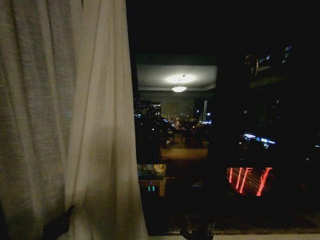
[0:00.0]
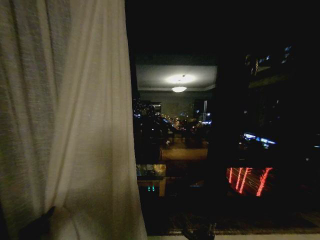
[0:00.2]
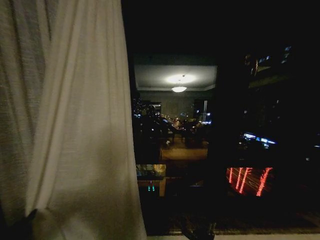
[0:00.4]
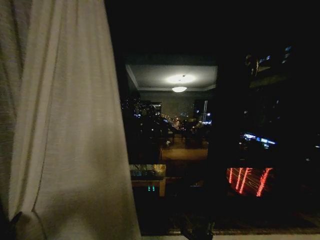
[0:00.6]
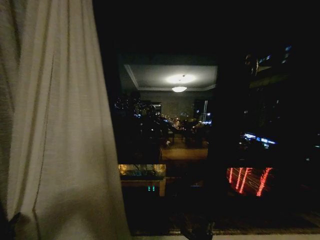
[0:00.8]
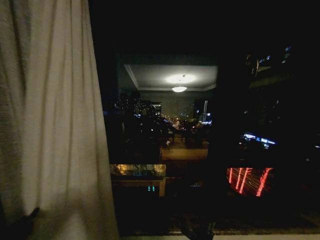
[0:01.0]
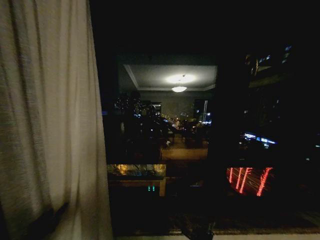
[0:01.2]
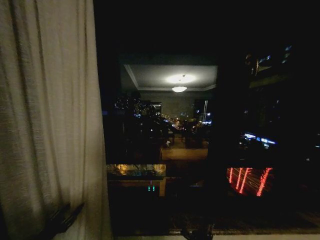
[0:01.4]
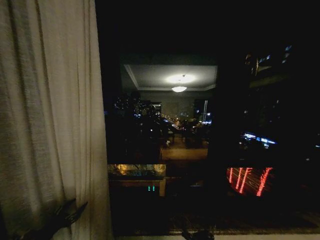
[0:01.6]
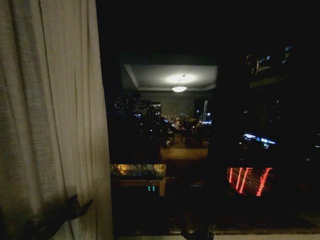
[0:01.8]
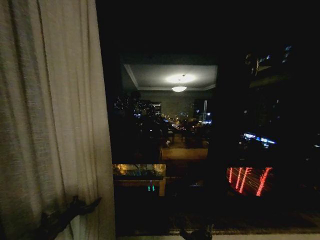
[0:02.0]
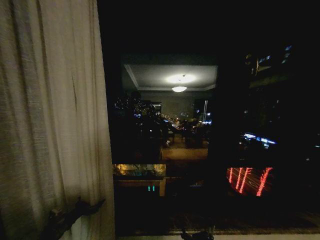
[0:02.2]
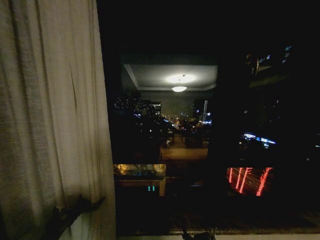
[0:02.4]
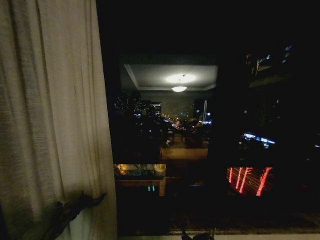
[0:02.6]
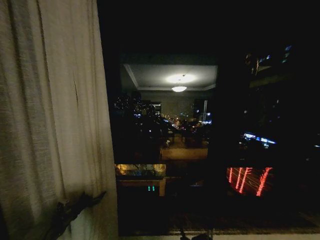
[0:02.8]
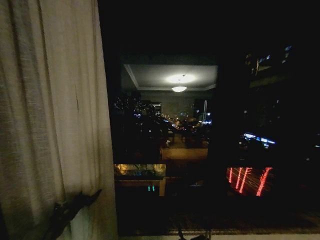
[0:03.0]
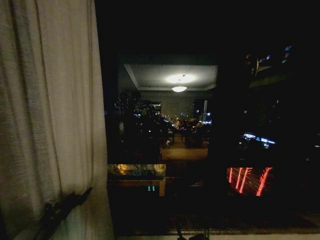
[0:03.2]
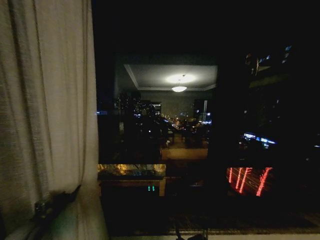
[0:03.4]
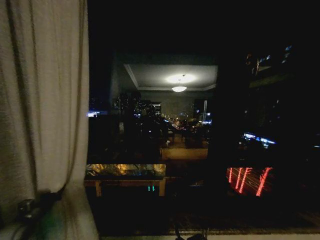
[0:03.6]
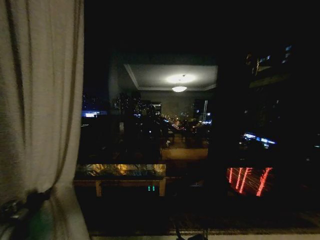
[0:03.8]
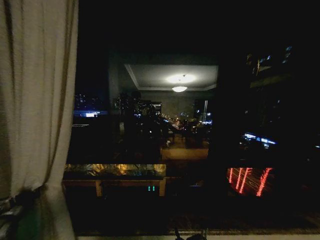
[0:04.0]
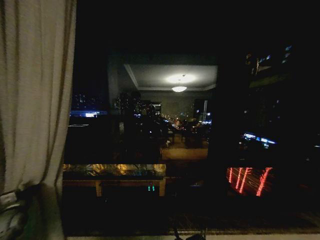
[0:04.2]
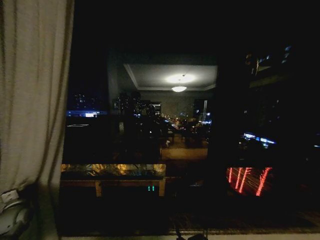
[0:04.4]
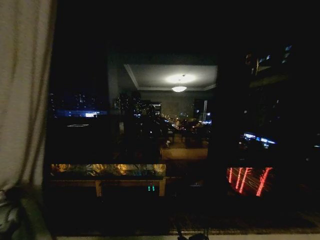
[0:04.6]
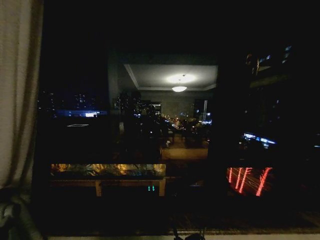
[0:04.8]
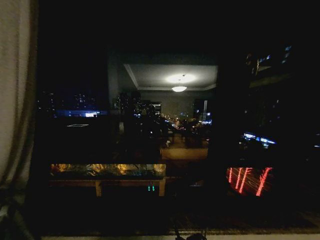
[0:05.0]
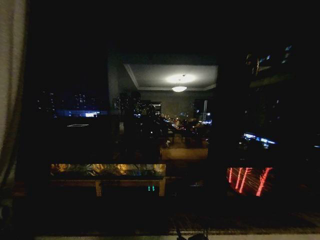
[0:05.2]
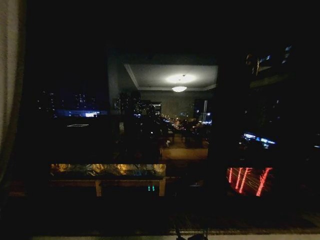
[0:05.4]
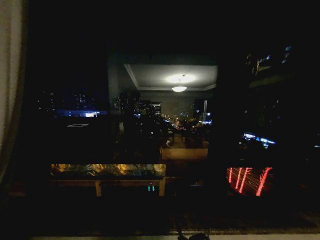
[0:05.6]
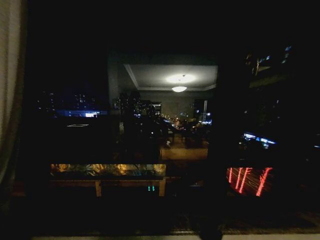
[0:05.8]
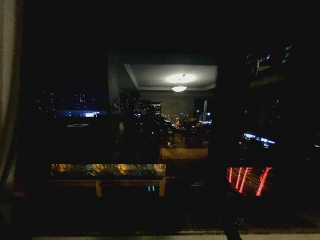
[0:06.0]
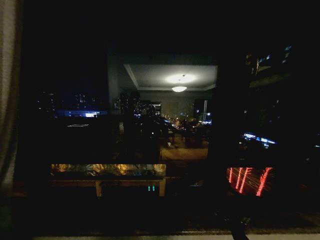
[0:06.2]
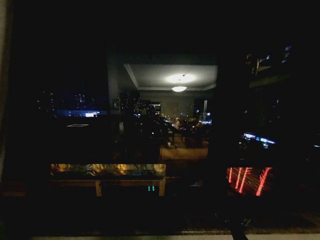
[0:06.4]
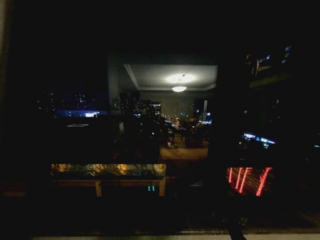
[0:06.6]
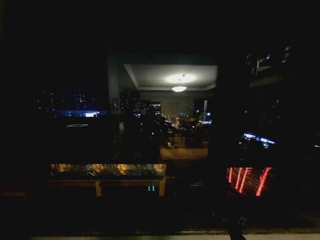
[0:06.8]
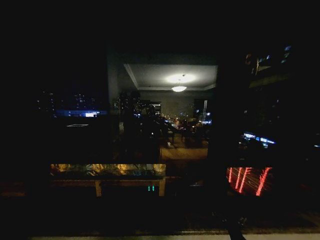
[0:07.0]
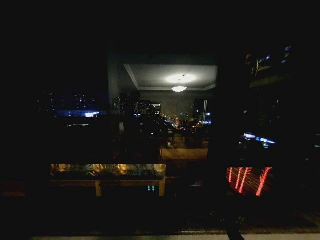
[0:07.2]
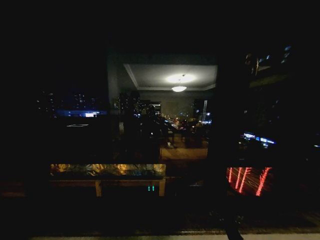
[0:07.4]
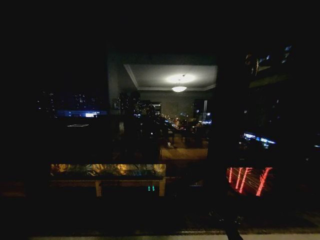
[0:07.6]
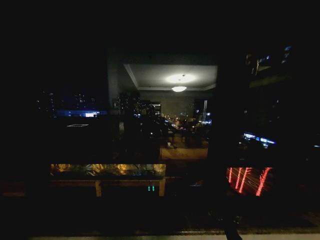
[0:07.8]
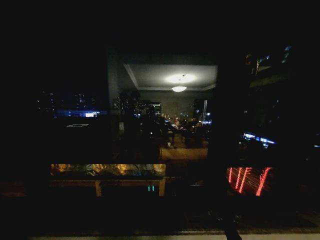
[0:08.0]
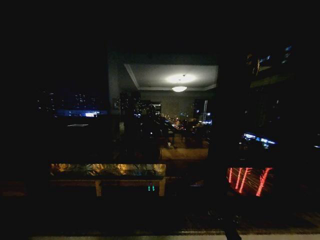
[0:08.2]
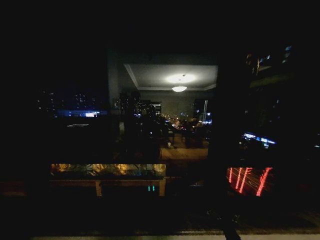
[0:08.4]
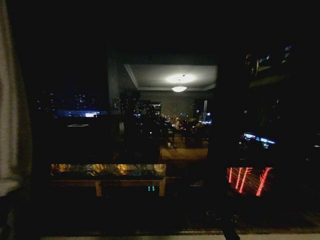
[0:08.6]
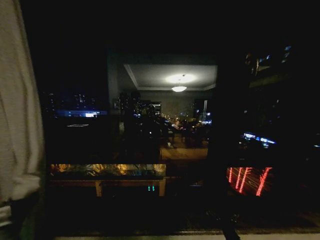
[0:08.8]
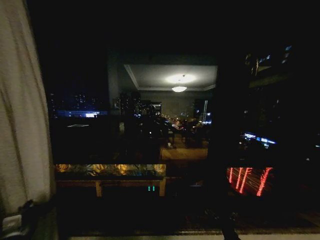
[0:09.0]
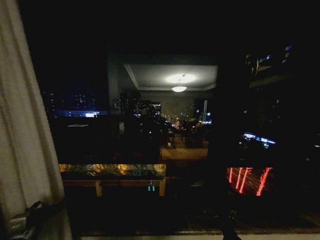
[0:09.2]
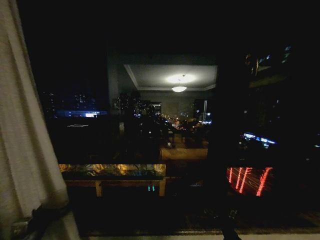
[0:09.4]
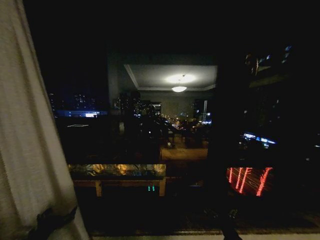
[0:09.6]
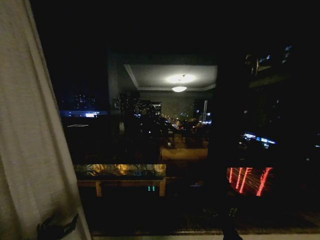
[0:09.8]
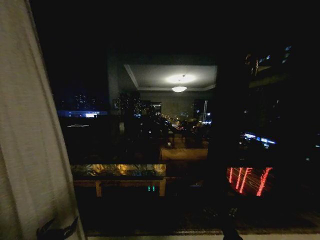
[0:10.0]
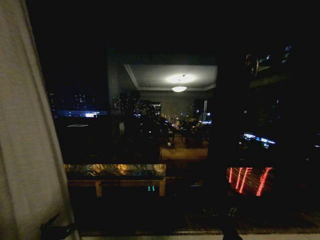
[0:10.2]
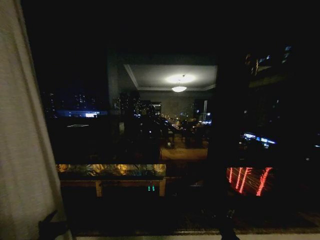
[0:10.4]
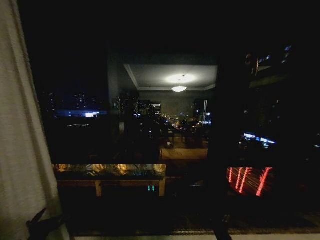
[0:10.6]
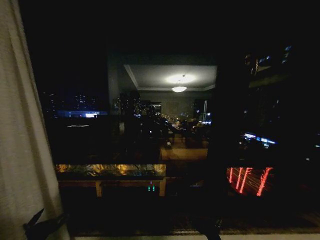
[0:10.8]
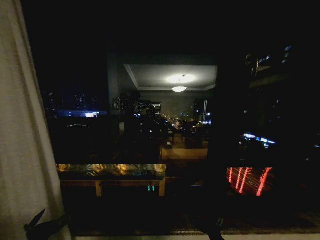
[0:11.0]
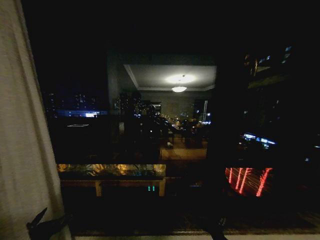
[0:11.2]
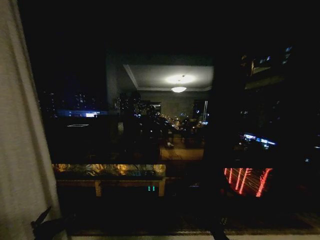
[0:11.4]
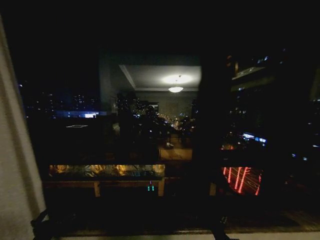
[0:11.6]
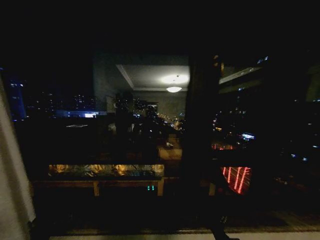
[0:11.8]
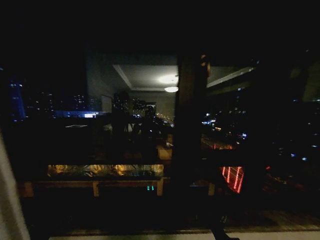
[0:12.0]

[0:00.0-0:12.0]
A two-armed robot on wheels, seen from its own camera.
Task of the whole recording: Open the curtains by pulling them apart, changing their state from closed to fully open.
0:00.0 to 0:01.6: The left gripper heads to the left, covering about 5 cm, and opens its fingers.
0:01.6 to 0:03.0: The left gripper moves forward, roughly 10 cm.
0:03.0 to 0:04.4: The left gripper is displaced to the left and upward by approximately 15 cm, and closes.
0:04.4 to 0:06.0: The left gripper goes approximately 10 cm to the left.
0:06.0 to 0:07.6: The left gripper moves to the left, approximately 10 cm.
0:07.6 to 0:09.0: The left gripper travels to the right by roughly 30 cm, and opens.
0:09.0 to 0:10.4: The left gripper is displaced downward and backward by approximately 10 cm.
0:10.4 to 0:12.0: The left gripper ends up some 5 cm from where it was.

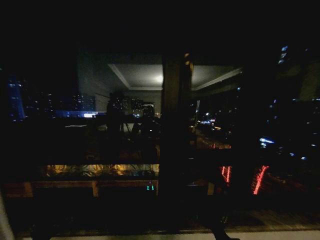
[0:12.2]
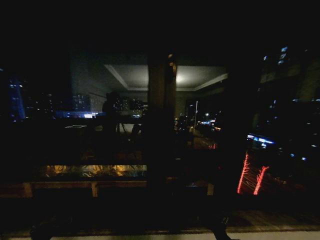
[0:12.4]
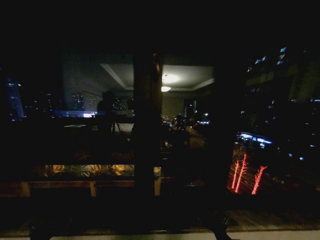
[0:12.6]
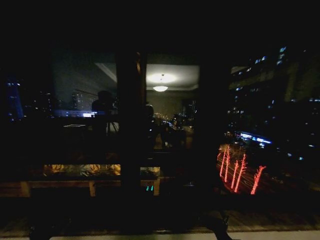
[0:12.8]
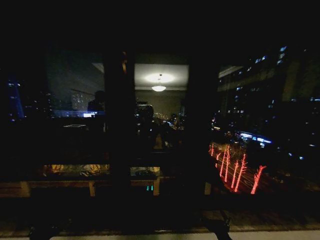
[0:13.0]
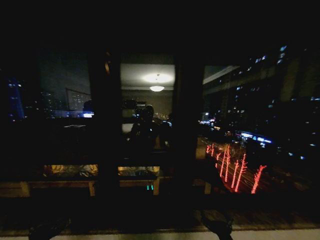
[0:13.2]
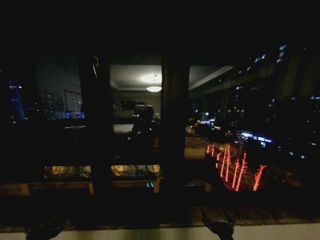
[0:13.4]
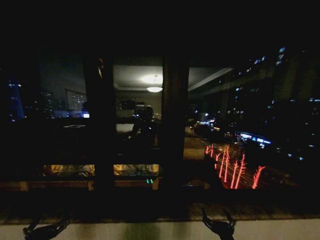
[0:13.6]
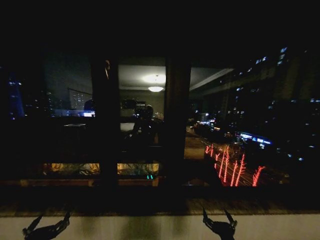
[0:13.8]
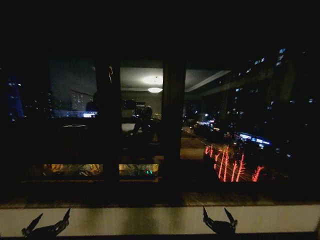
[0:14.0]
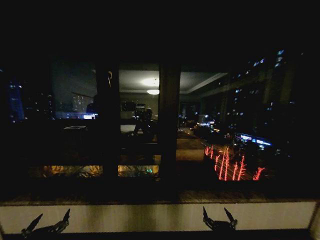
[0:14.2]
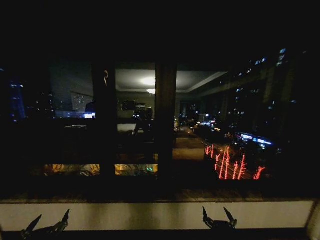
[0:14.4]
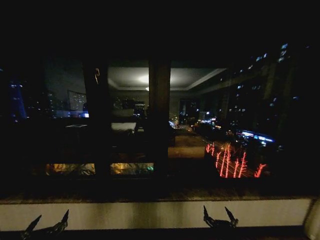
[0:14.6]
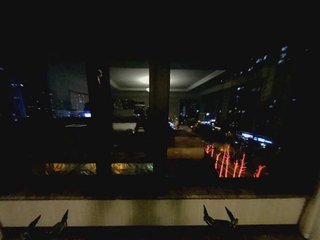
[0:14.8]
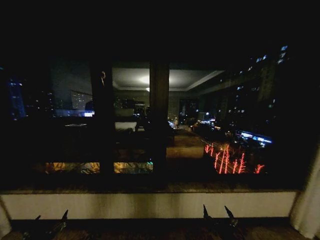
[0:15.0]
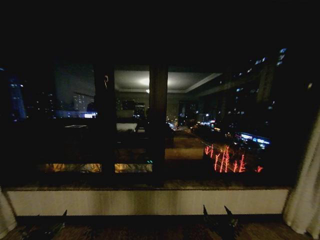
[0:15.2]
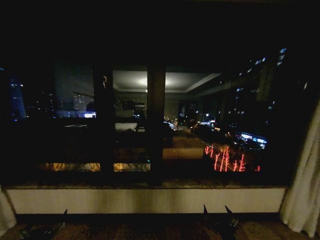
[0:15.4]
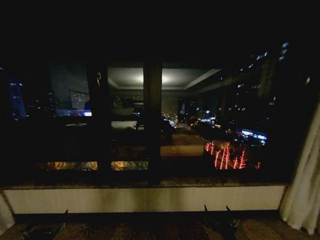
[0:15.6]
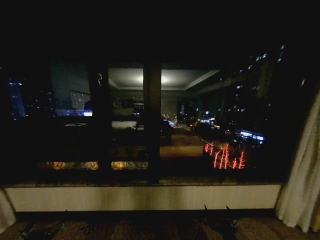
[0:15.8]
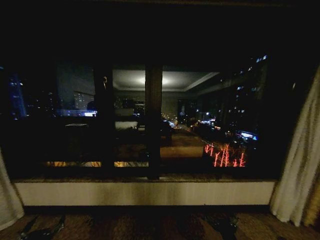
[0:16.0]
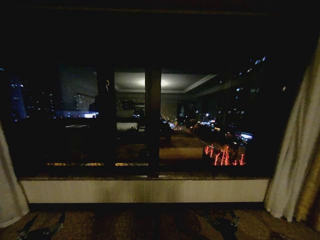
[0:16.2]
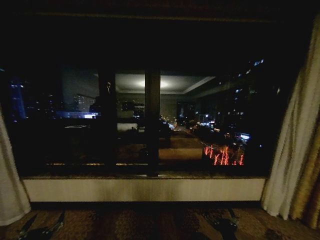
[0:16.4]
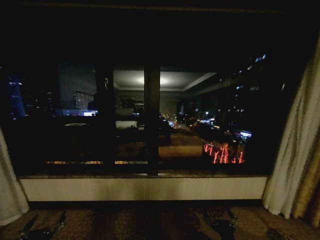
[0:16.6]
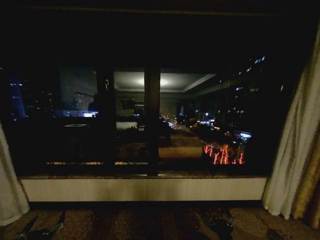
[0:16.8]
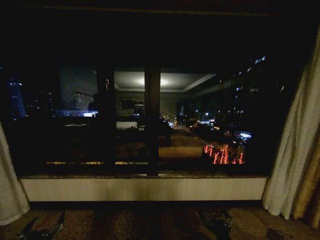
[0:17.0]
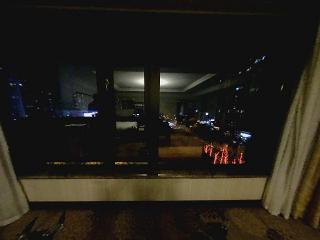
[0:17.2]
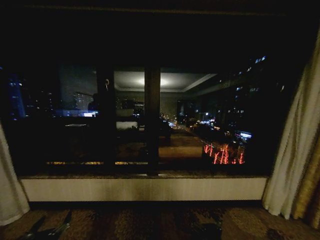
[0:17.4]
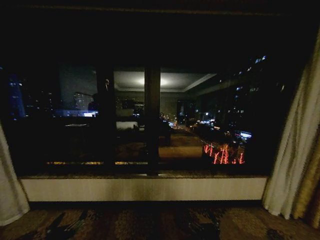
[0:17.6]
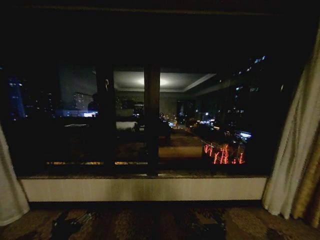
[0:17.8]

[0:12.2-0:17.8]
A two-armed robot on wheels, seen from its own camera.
Task of the whole recording: Open the curtains by pulling them apart, changing their state from closed to fully open.
0:12.2 to 0:13.6: There are only small adjustments of the grippers.
0:16.4 to 0:17.8: The left gripper travels to the right and upward by about 10 cm. The right gripper is displaced upward and backward by roughly 10 cm.
